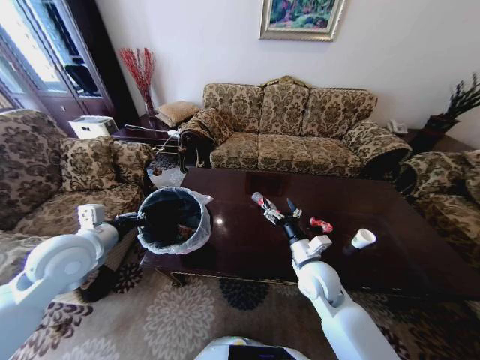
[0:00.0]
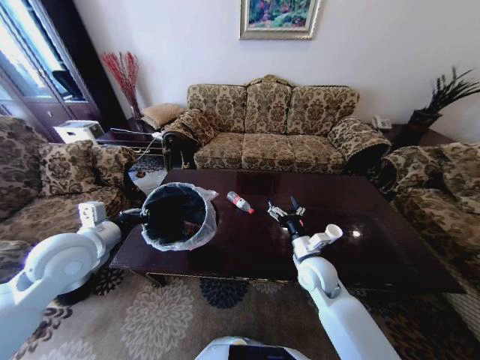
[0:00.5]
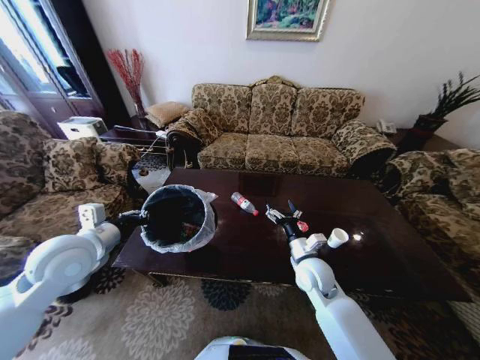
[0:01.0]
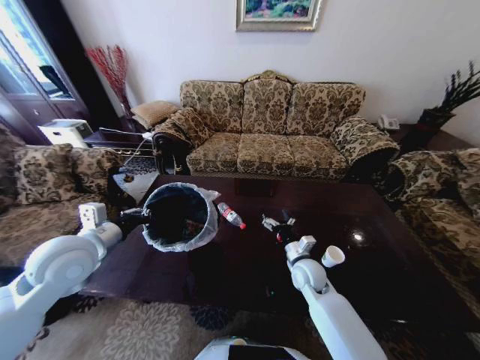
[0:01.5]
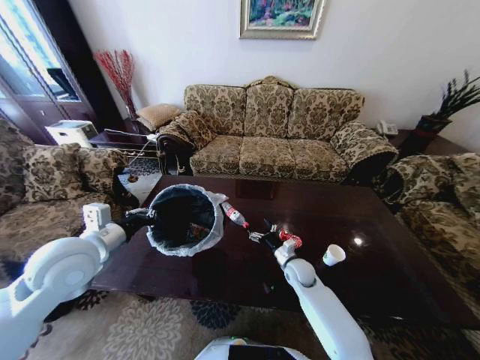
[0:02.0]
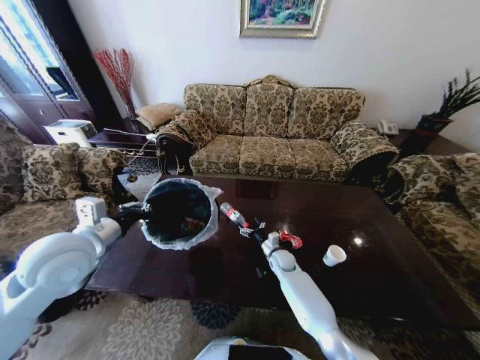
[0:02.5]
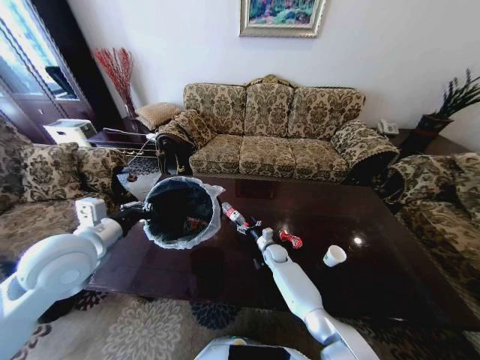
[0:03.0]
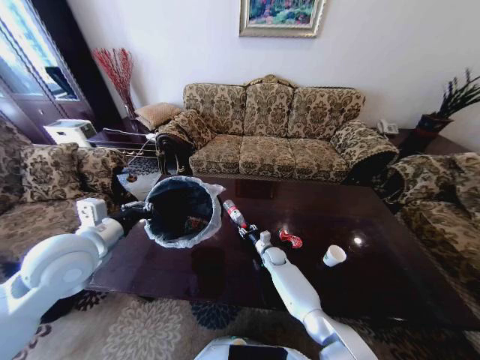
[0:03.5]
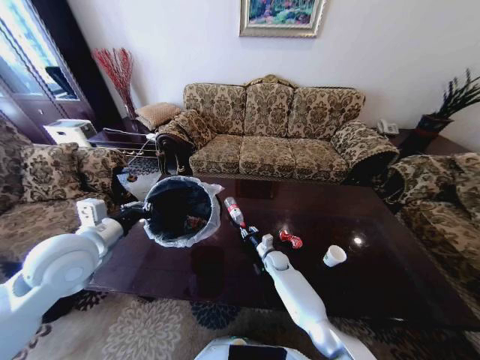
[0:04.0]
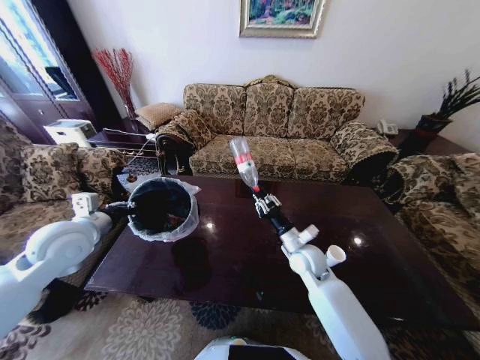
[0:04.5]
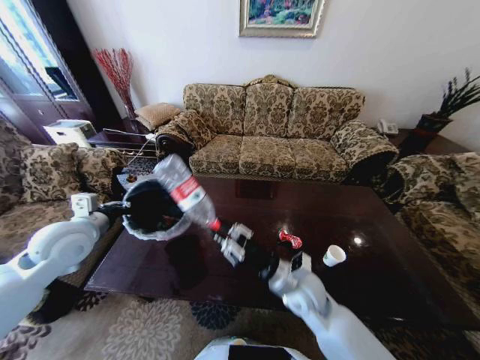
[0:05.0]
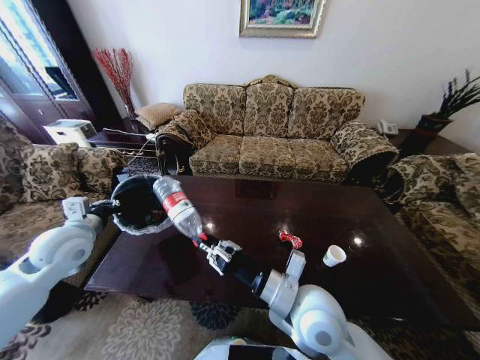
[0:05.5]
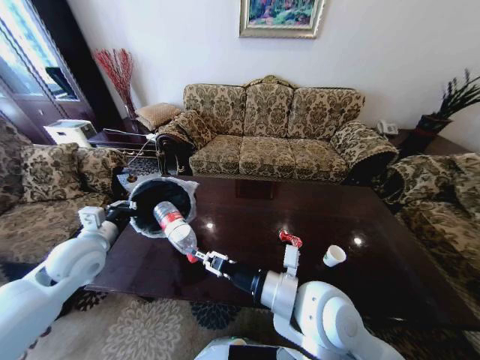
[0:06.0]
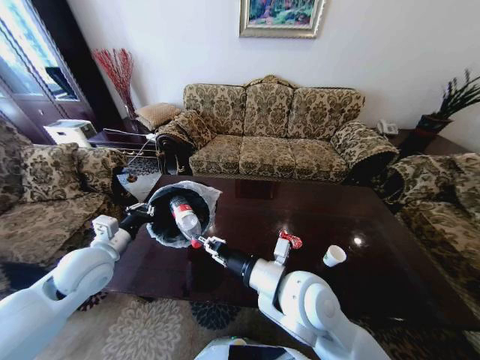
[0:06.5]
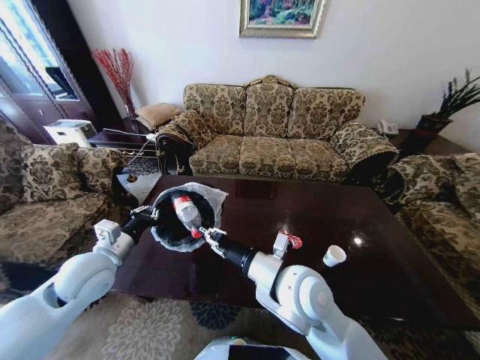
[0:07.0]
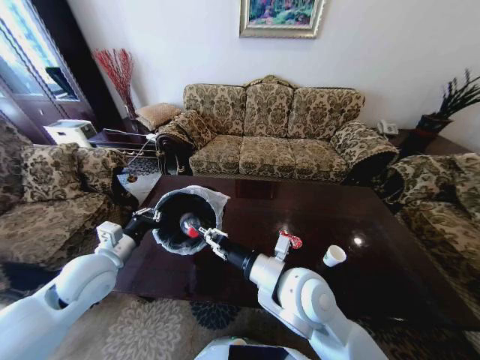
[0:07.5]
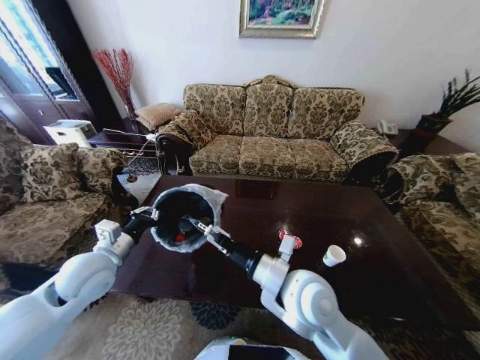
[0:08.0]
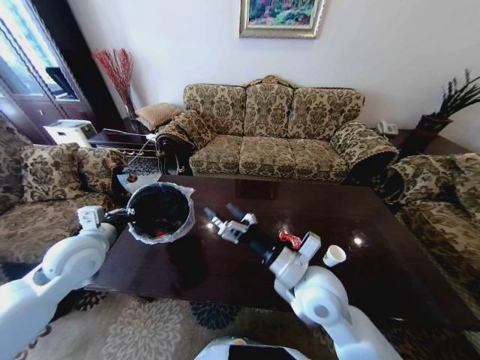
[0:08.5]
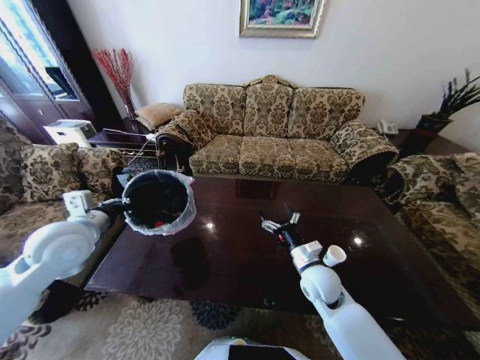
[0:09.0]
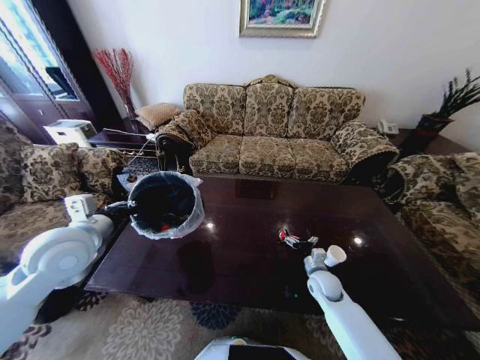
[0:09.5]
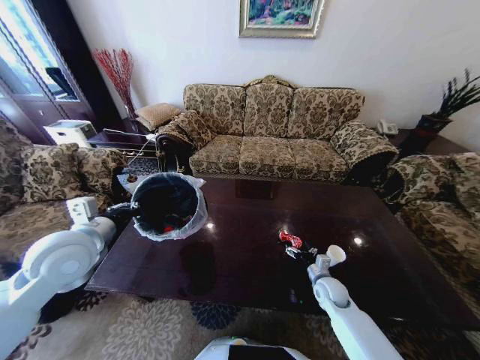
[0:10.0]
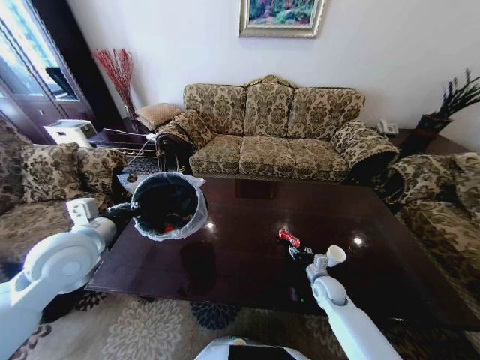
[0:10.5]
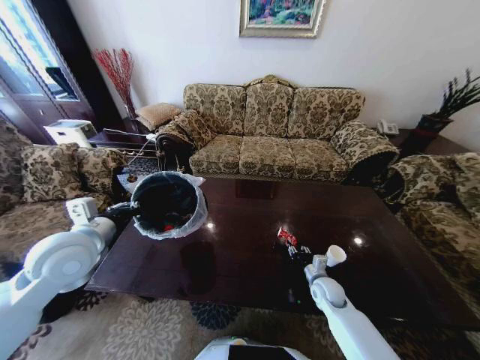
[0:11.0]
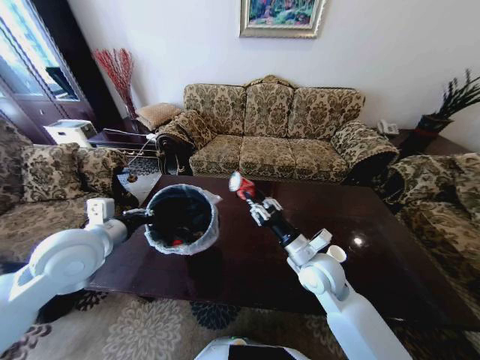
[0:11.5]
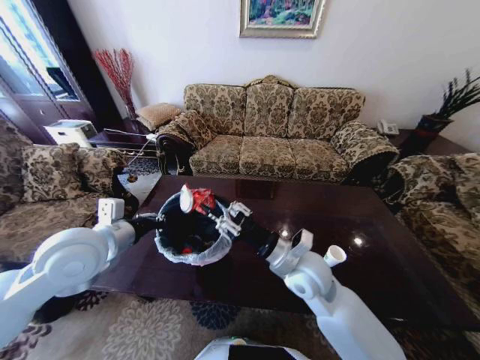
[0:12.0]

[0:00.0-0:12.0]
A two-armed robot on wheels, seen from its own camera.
Task of the whole recording: Move to the front of the table and place the trash on the table into the trash bin.
0:00.0 to 0:02.0: The right gripper shifts about 15 cm downward and forward.
0:02.0 to 0:04.0: The right gripper is displaced downward, forward and to the left by approximately 10 cm, and closes.
0:04.0 to 0:06.0: The right gripper moves upward and backward, about 40 cm, while the left gripper goes about 5 cm downward.
0:06.0 to 0:08.0: The right gripper opens its fingers.
0:08.0 to 0:10.0: The right gripper goes roughly 35 cm downward and to the right. The left gripper heads upward, covering about 10 cm.
0:10.0 to 0:12.0: The right gripper is displaced upward and to the left by approximately 30 cm, and closes.

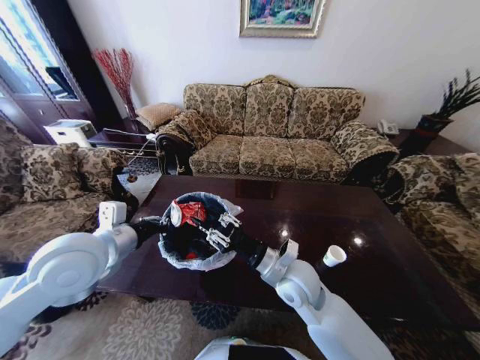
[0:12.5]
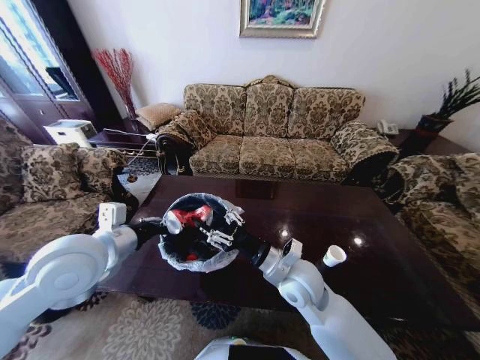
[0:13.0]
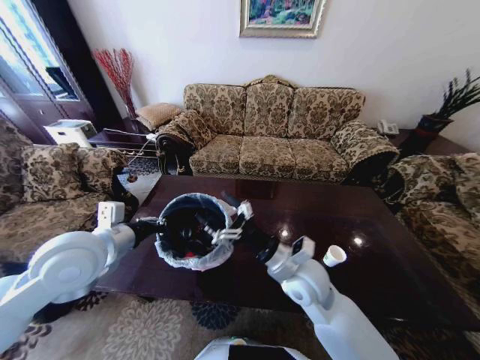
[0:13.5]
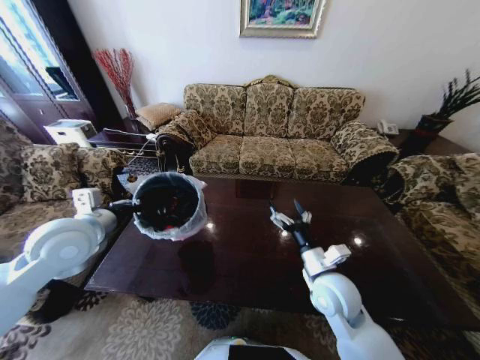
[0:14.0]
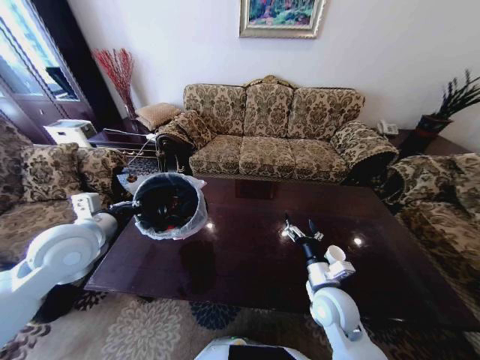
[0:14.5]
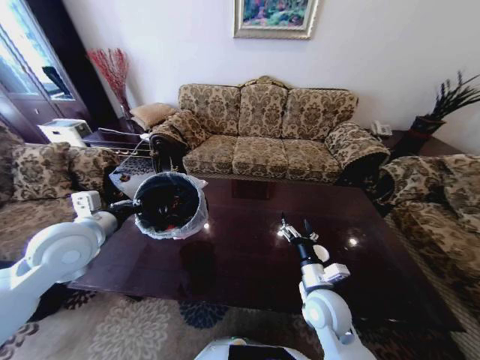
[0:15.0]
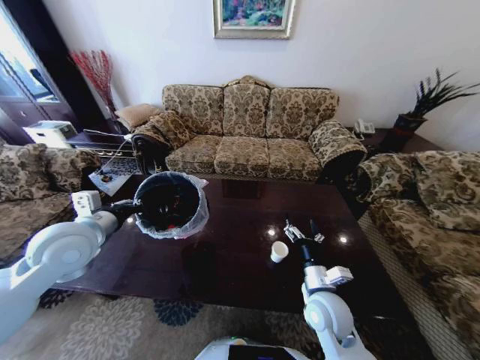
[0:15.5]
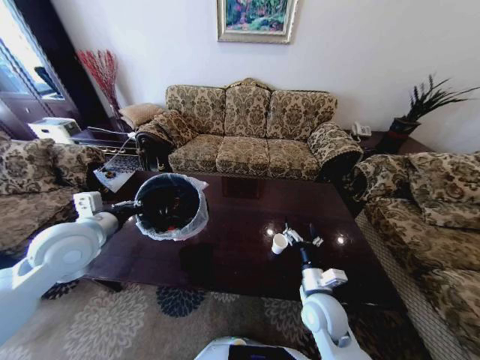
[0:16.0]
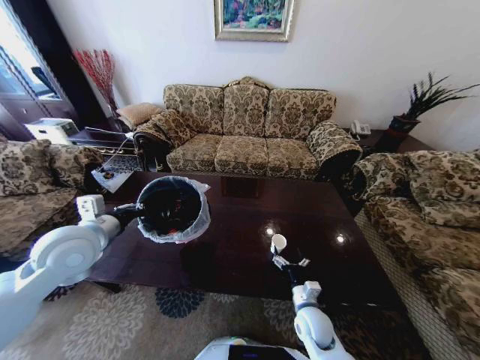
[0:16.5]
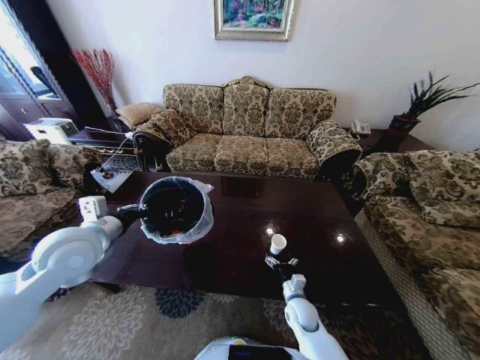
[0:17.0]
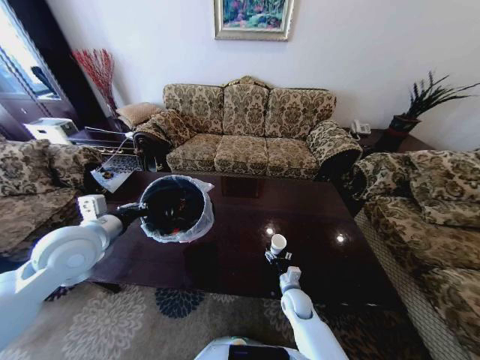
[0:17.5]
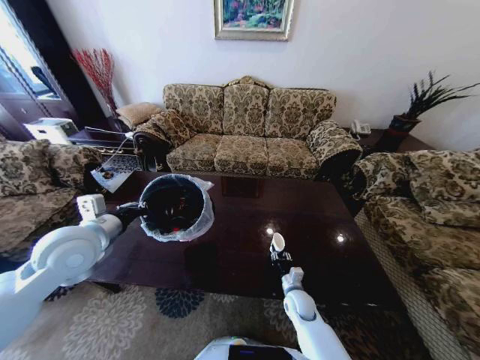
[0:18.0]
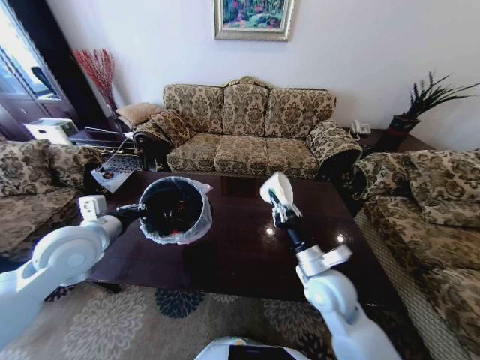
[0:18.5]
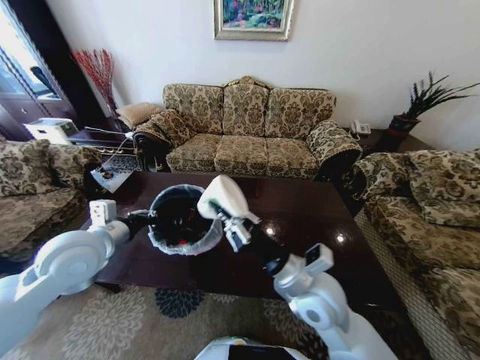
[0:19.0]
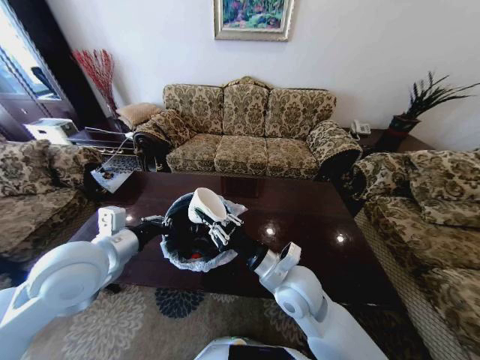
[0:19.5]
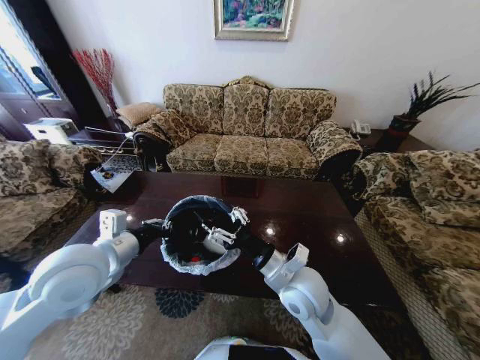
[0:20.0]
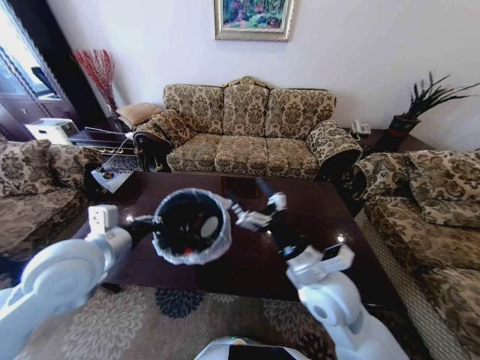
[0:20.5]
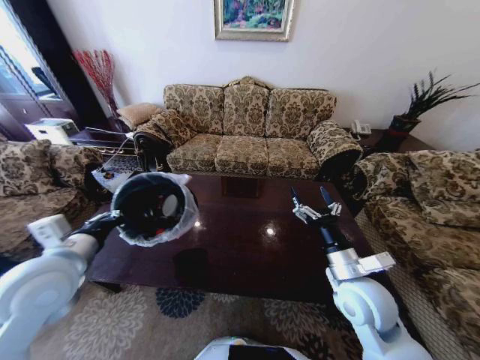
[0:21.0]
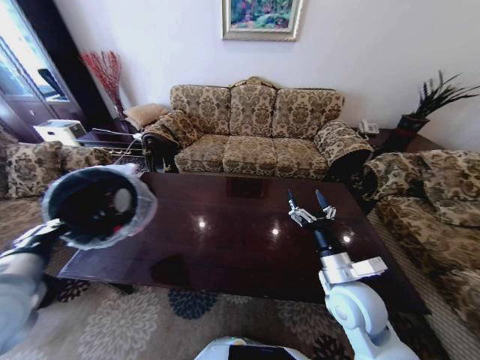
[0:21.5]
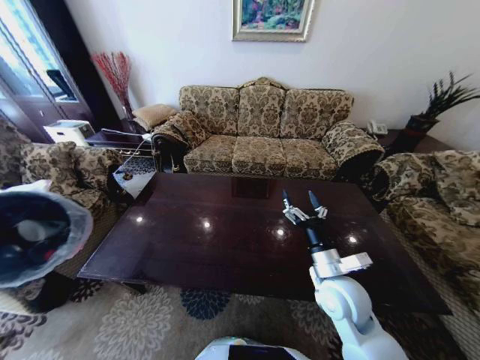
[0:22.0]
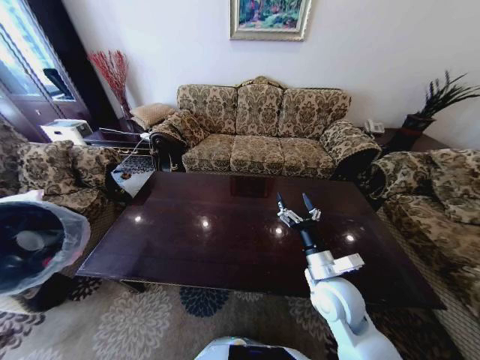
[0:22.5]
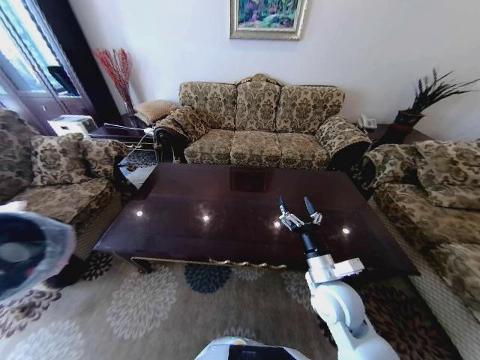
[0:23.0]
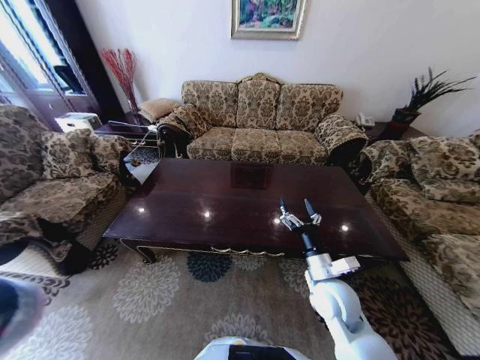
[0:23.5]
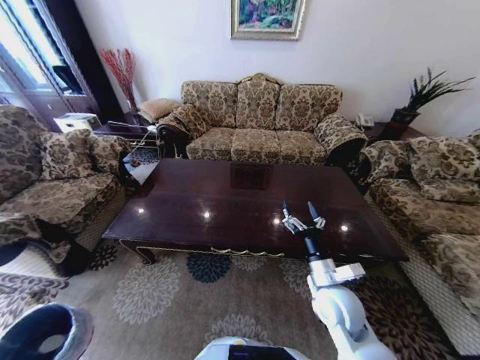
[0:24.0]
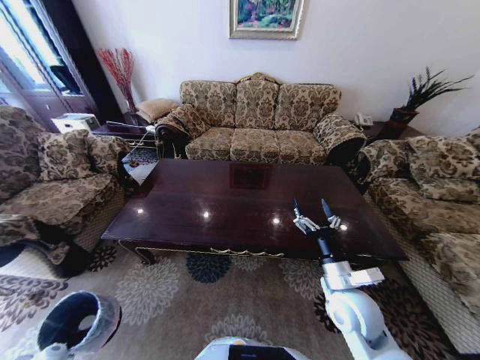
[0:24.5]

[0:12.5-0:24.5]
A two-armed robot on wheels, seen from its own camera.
Task of the whole recording: Move to the front of the table and place the trash on the table into the trash bin.
0:12.5 to 0:14.5: The right gripper heads to the right and downward, covering about 15 cm, and opens its fingers. Meanwhile the left gripper shifts some 5 cm to the left.
0:14.5 to 0:16.5: The right gripper is displaced downward by some 15 cm.
0:16.5 to 0:18.5: The right gripper is displaced upward by roughly 20 cm, and closes up.
0:18.5 to 0:20.5: The right gripper is displaced upward by about 5 cm, and opens up. The left gripper shifts by some 5 cm.
0:20.5 to 0:22.5: The left gripper is displaced to the left, backward and downward by some 20 cm; the right gripper heads downward and to the right, covering roughly 10 cm.
0:22.5 to 0:24.5: The left gripper travels downward by about 35 cm.

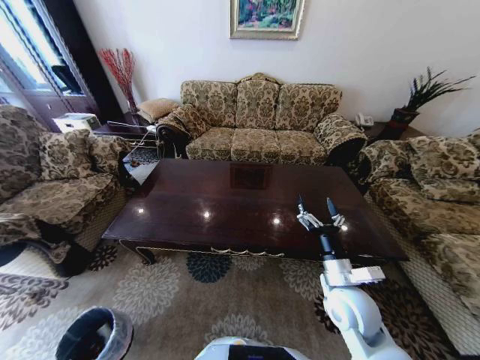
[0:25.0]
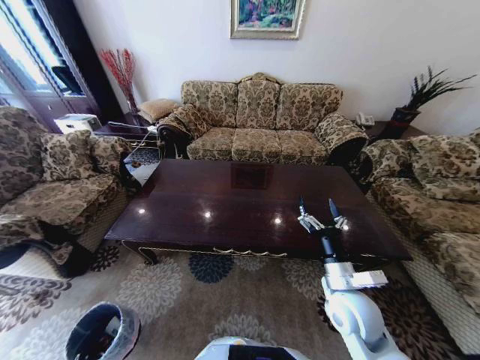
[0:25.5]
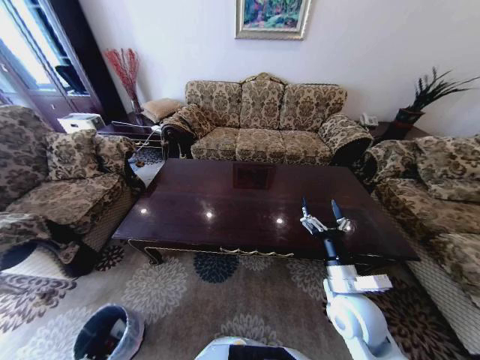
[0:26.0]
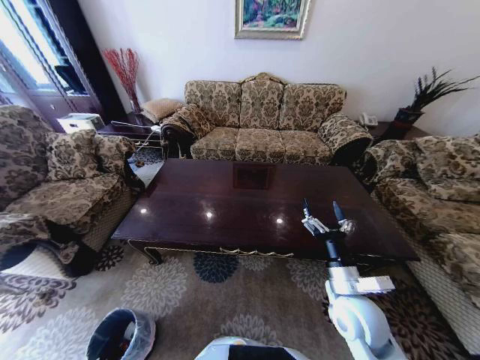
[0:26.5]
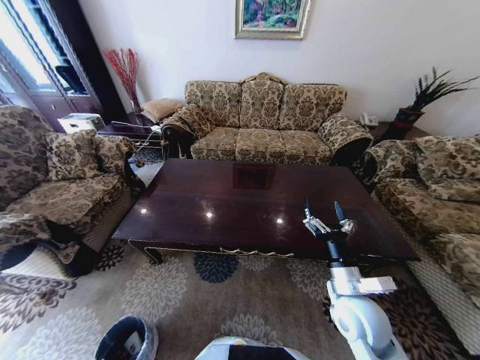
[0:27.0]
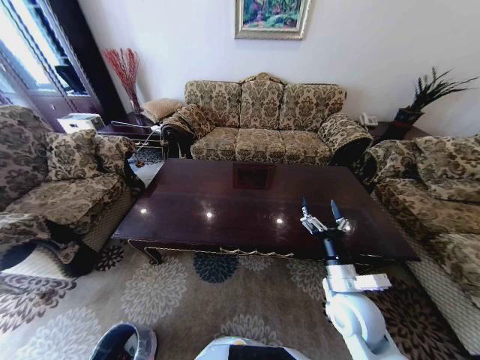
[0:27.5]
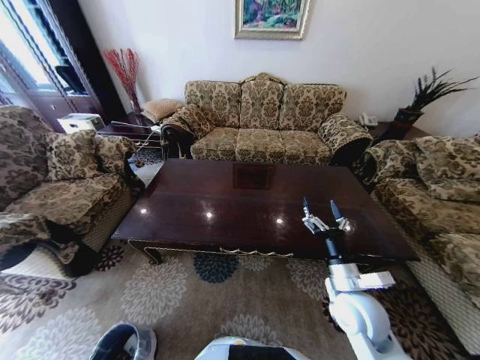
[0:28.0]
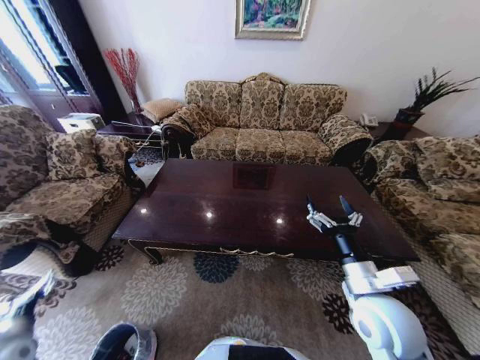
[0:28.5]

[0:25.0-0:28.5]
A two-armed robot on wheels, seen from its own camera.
Task of the whole recording: Move to the front of the table and place the trash on the table into the trash bin.
0:25.0 to 0:27.0: The left gripper moves to the right, roughly 5 cm.
0:27.0 to 0:28.5: The left gripper heads upward, covering approximately 30 cm, and opens. The right gripper moves upward, approximately 5 cm.
